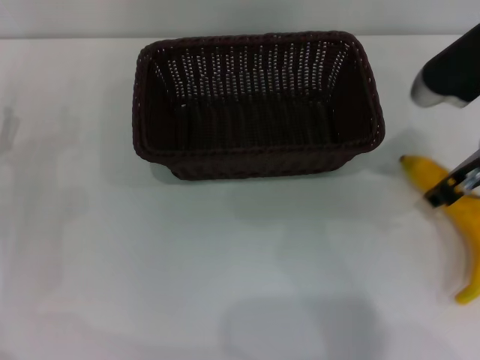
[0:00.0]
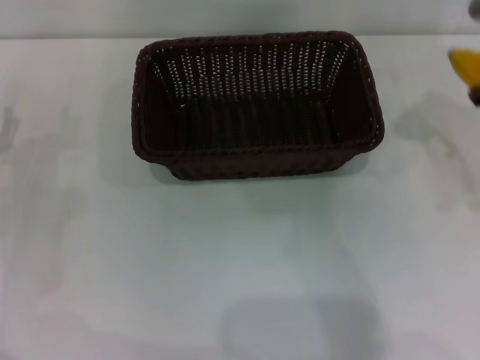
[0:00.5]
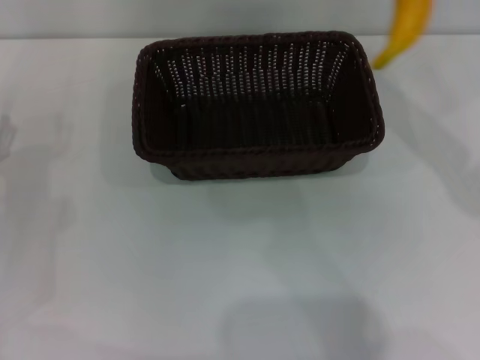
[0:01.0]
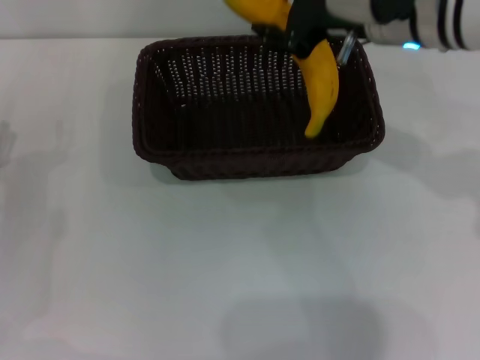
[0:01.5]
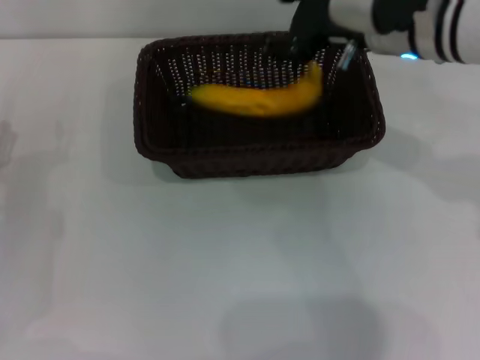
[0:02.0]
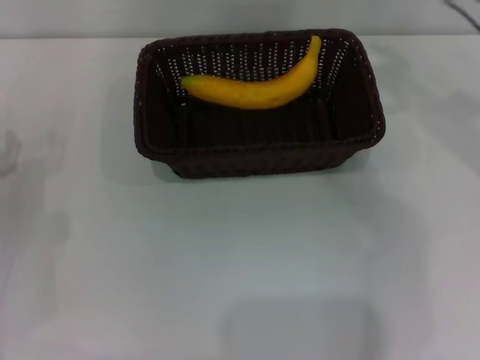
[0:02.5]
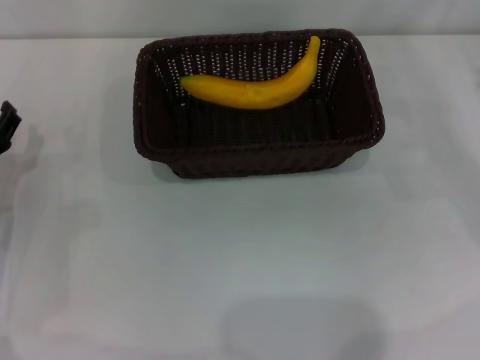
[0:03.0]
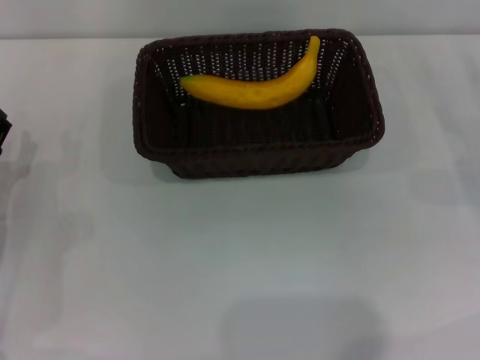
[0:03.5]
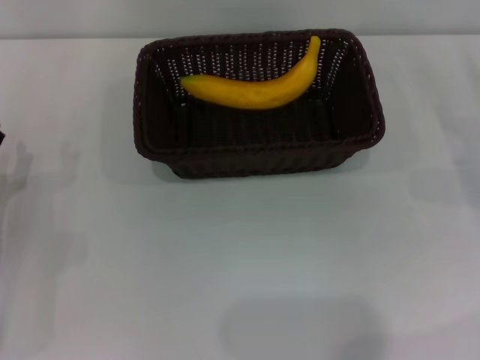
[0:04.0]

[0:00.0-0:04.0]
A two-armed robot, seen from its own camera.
Step, 0:00.5 to 0:01.5: Place the banana into the dark basket with the right gripper.
0:00.0 to 0:02.0: The right gripper shifts some 10 cm to the left and forward, and opens up.
0:02.0 to 0:04.0: The right gripper travels to the right and downward by roughly 30 cm, and opens its fingers.

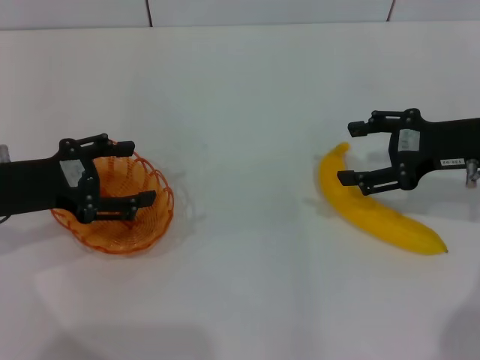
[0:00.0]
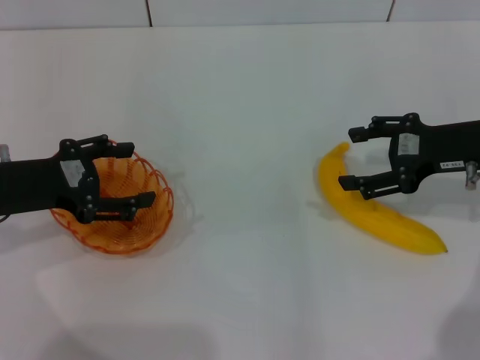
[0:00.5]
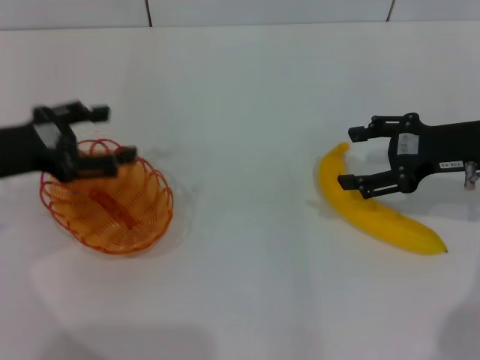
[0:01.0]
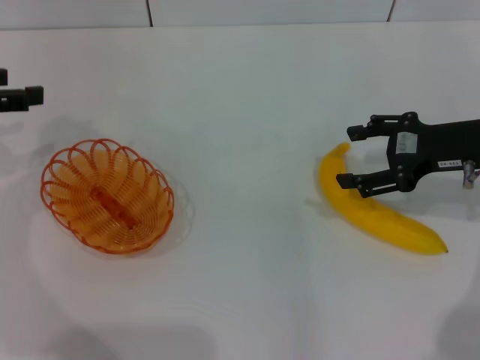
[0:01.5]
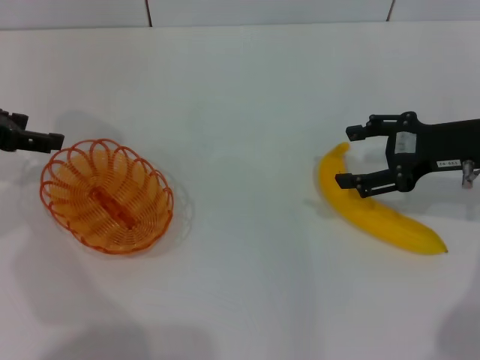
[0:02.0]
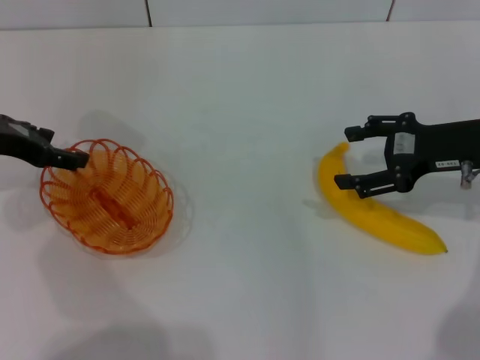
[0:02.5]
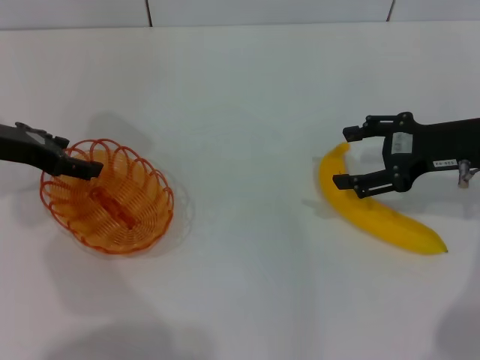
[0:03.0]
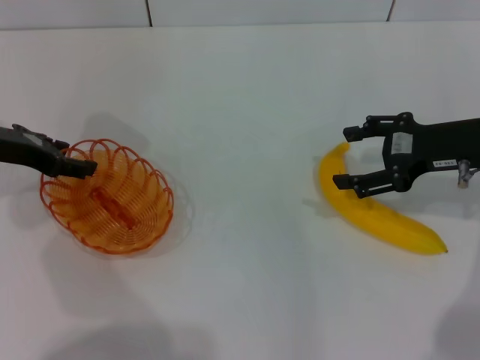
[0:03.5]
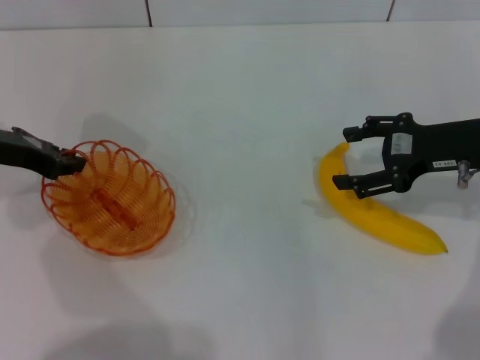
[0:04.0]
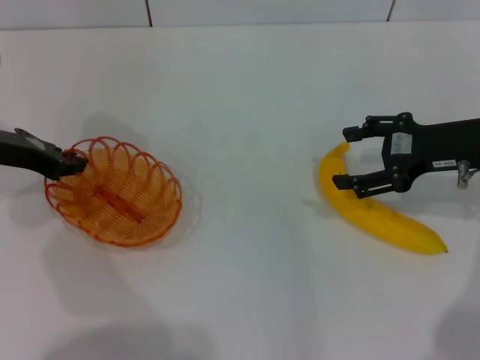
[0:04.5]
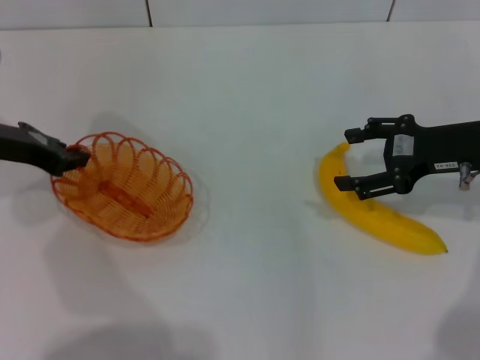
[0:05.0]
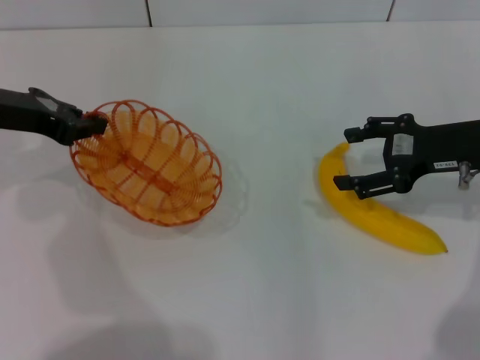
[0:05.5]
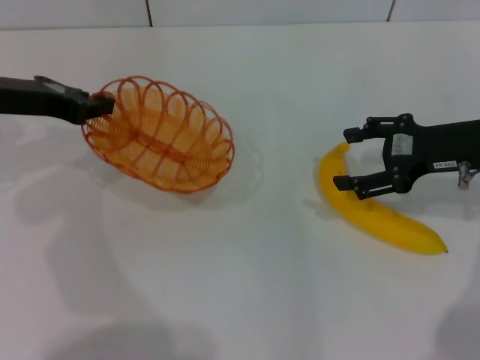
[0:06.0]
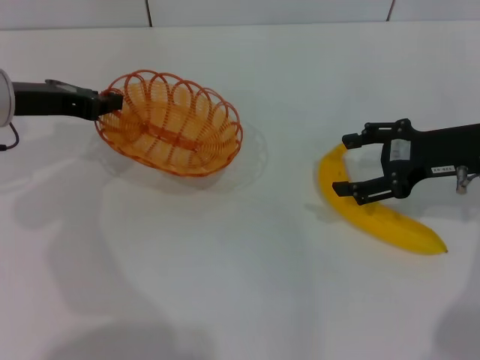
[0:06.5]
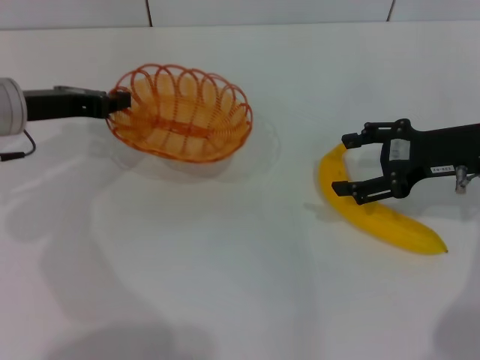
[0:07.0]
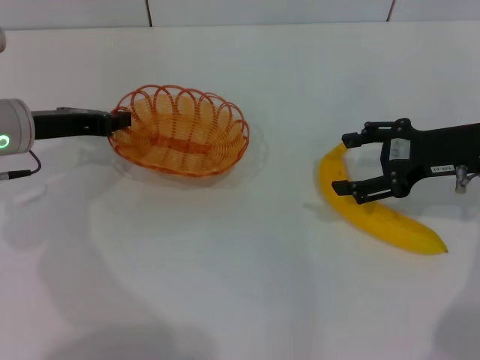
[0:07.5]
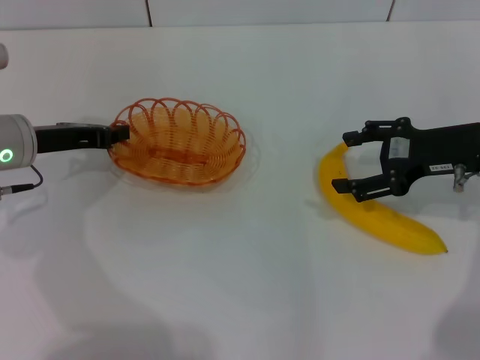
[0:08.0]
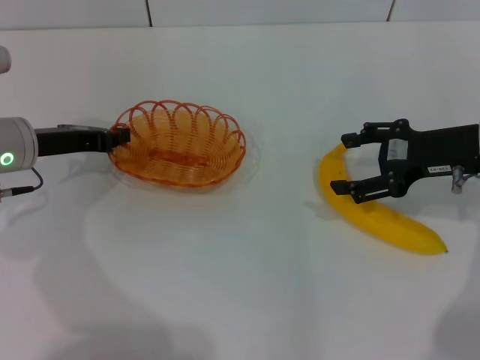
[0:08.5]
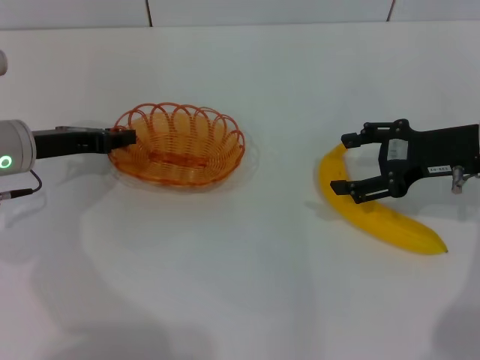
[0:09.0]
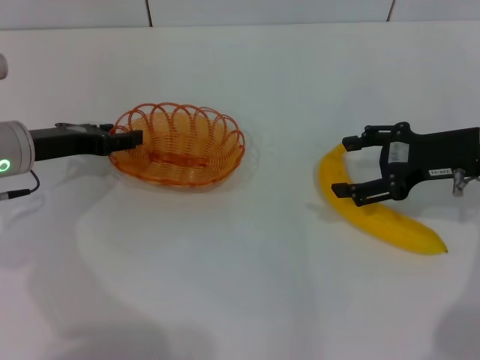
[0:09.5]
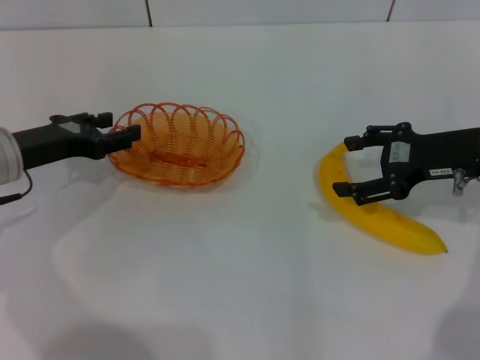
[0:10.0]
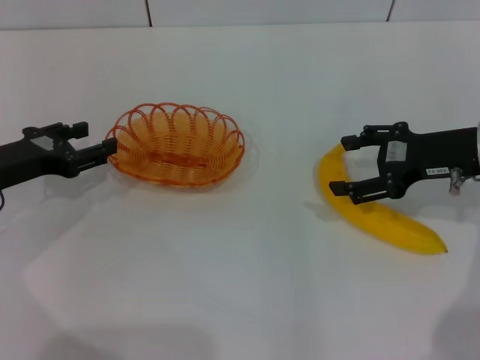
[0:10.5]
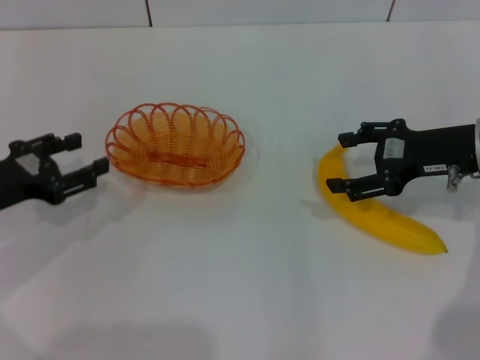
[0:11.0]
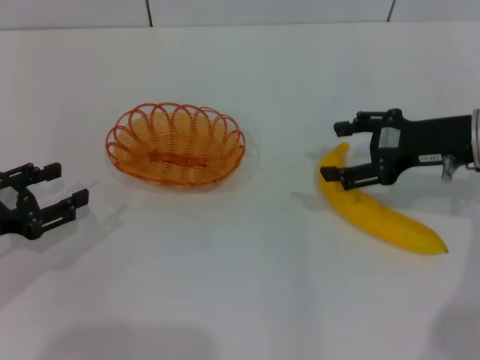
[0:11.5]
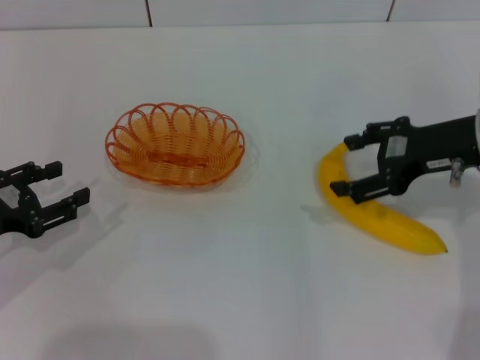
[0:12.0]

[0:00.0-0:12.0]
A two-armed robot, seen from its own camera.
Step, 0:00.0 to 0:05.0: Pick up the basket with the left gripper.
Step, 0:05.5 to 0:10.0: Place the basket in the center of view with the left gripper.
0:00.0 to 0:02.0: The left gripper is displaced forward and upward by approximately 10 cm.
0:02.0 to 0:04.0: The left gripper moves some 5 cm, and closes.
0:04.0 to 0:06.0: The left gripper closes its fingers.
0:06.0 to 0:08.0: The left gripper goes some 10 cm downward.
0:08.0 to 0:10.0: The left gripper opens its fingers.
0:10.0 to 0:12.0: The left gripper heads backward and to the left, covering roughly 10 cm.

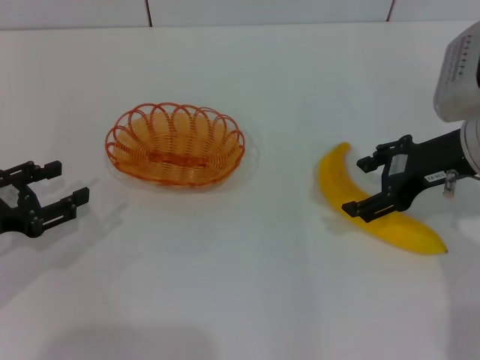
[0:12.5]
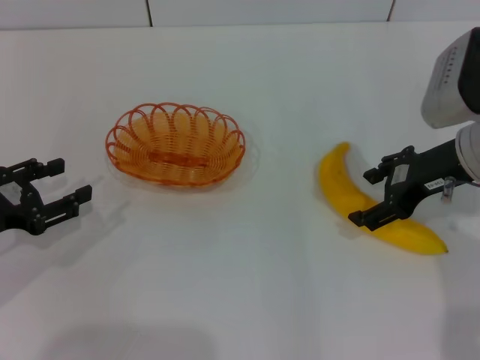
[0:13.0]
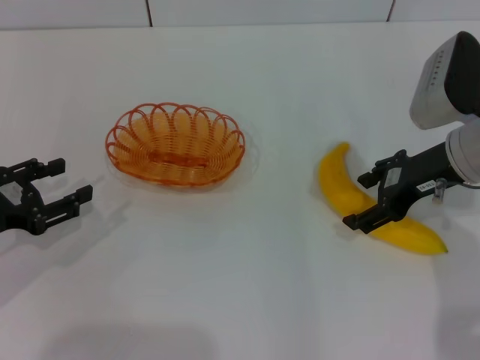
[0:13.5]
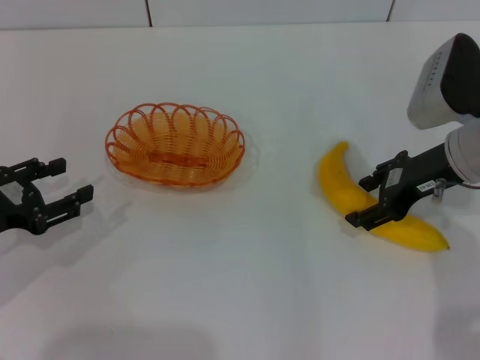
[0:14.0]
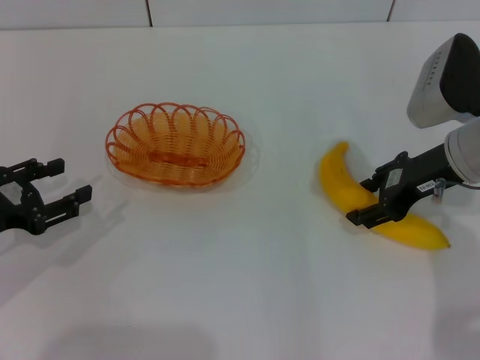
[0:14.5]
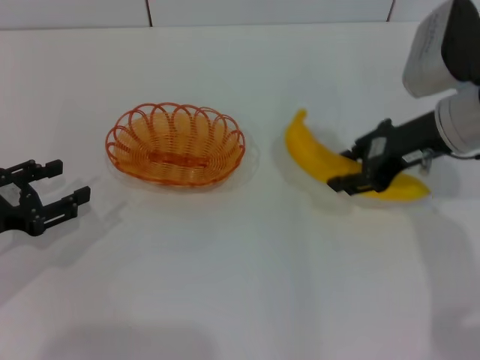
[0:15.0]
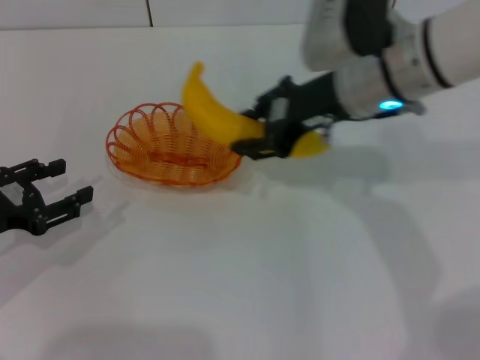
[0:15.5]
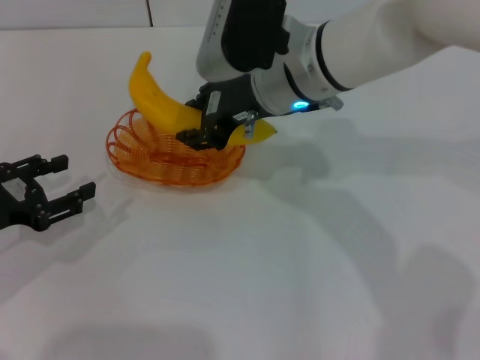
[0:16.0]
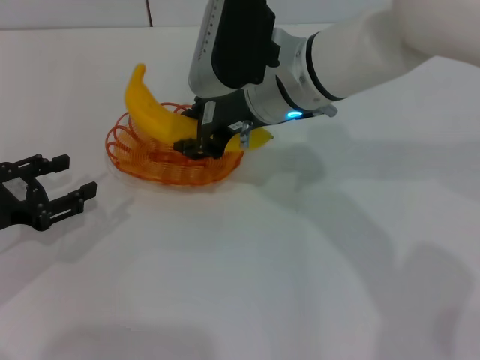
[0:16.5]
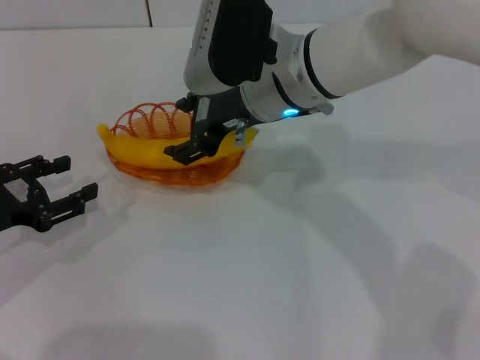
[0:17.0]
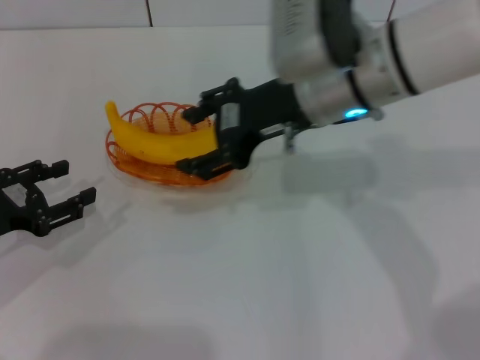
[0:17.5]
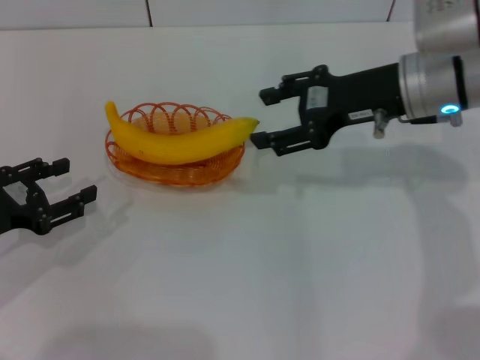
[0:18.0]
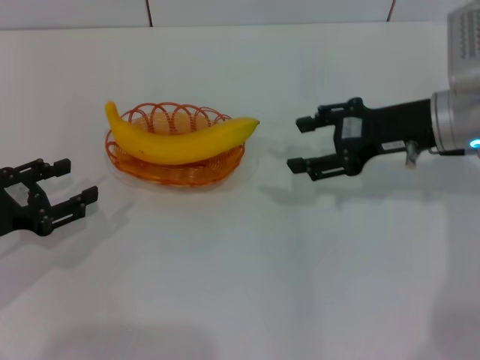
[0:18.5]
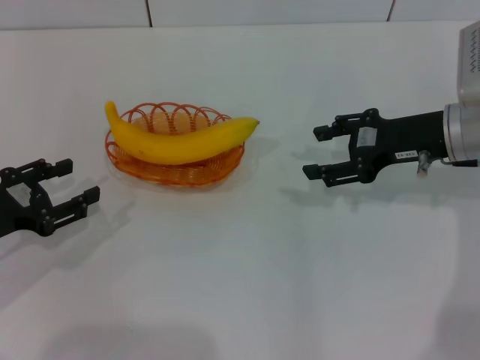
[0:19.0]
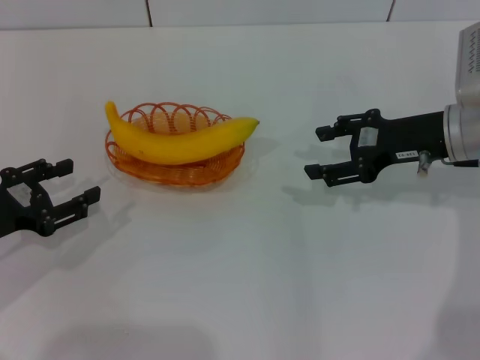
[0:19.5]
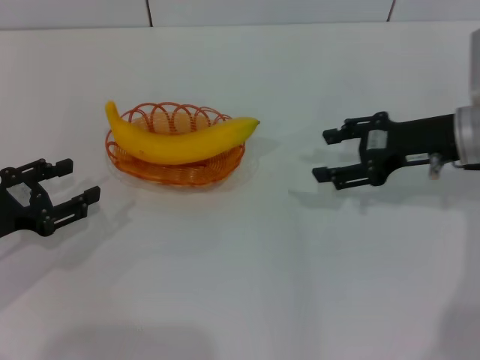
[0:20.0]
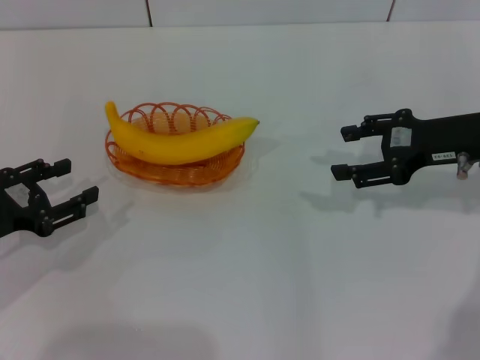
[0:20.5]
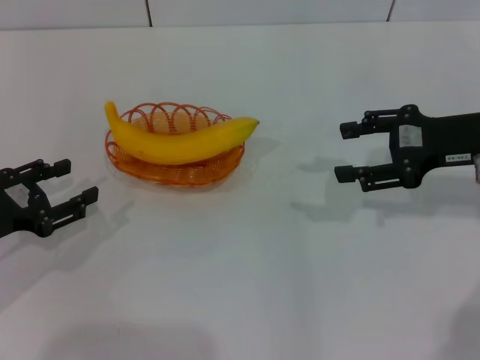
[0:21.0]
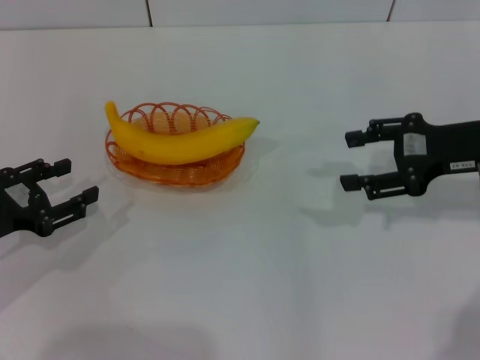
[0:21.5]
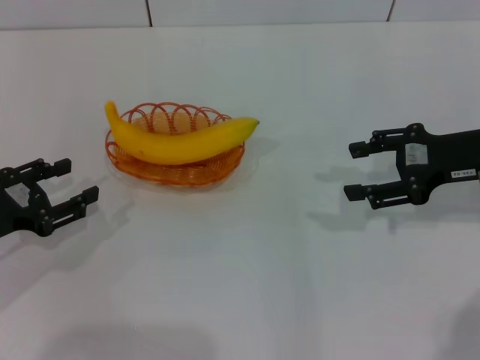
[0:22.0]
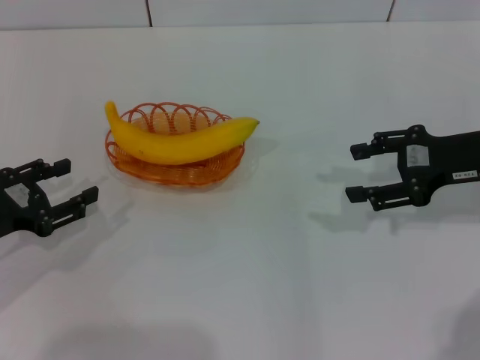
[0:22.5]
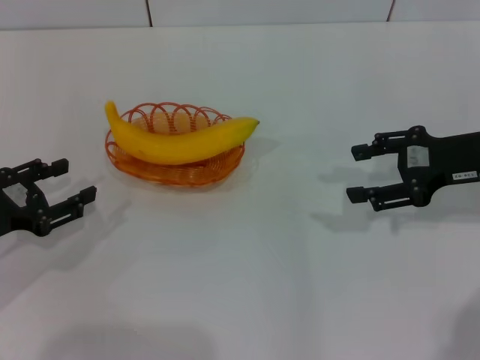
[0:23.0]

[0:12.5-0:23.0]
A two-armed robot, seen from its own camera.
Step, 0:12.5 to 0:15.0: Pick up the banana with the right gripper.
Step, 0:15.5 to 0:17.5: Place the banana into the basket with the right gripper.
0:12.5 to 0:14.5: The grippers make only small movements.
0:14.5 to 0:16.5: The right gripper heads to the left, covering roughly 20 cm, and closes up.
0:16.5 to 0:19.0: The right gripper goes about 20 cm to the right, and opens its fingers.
0:19.0 to 0:23.0: There are only small adjustments of the grippers.
